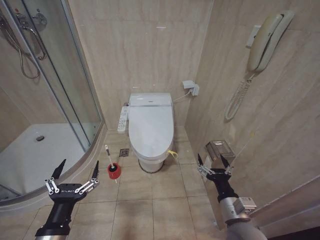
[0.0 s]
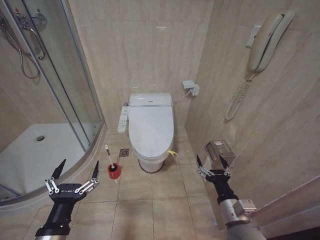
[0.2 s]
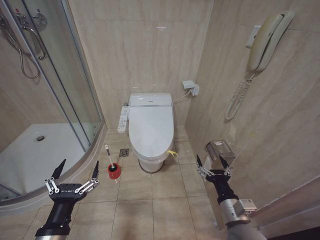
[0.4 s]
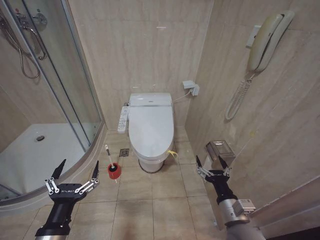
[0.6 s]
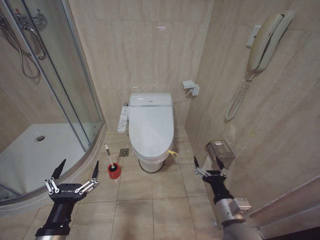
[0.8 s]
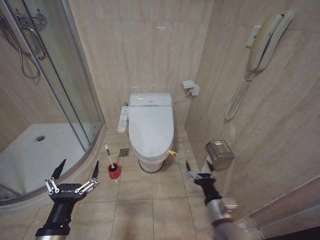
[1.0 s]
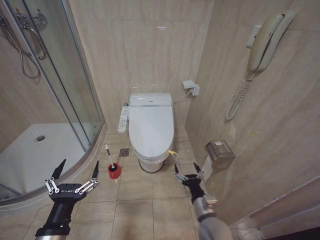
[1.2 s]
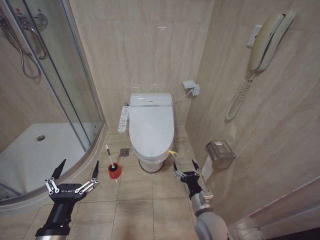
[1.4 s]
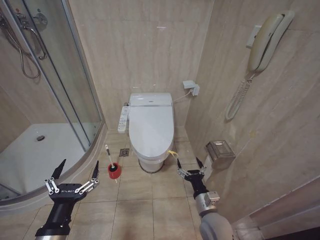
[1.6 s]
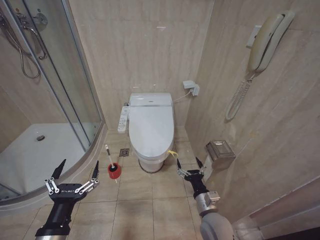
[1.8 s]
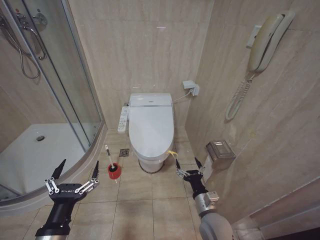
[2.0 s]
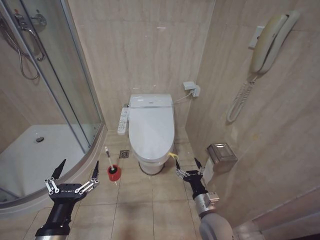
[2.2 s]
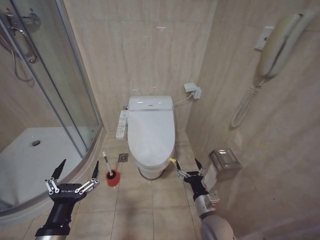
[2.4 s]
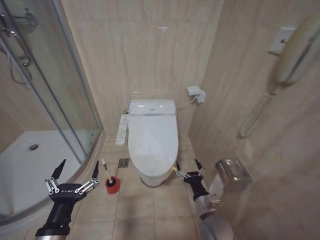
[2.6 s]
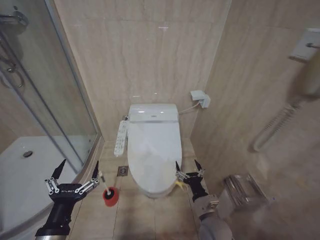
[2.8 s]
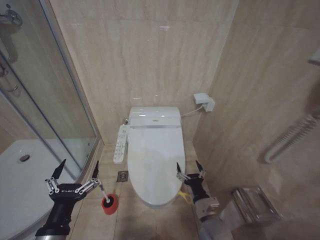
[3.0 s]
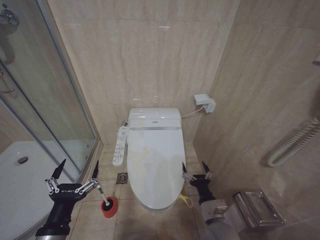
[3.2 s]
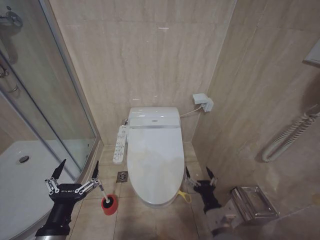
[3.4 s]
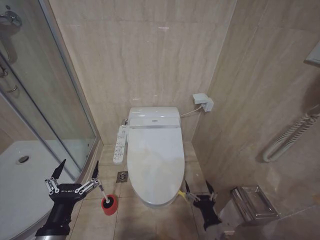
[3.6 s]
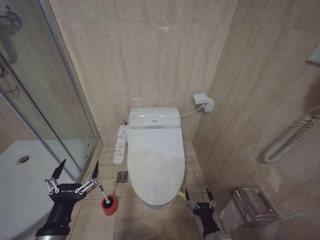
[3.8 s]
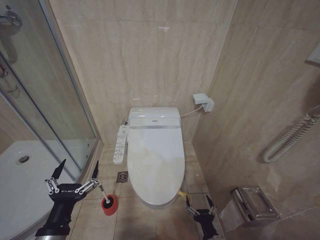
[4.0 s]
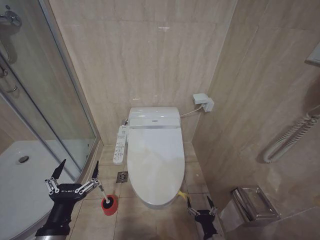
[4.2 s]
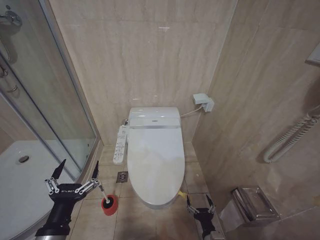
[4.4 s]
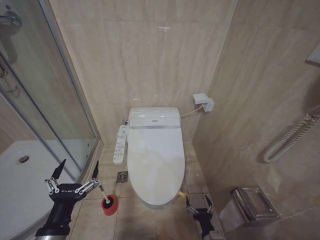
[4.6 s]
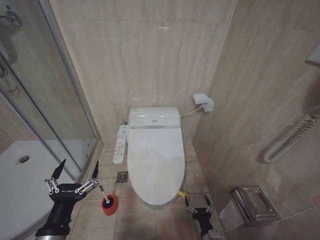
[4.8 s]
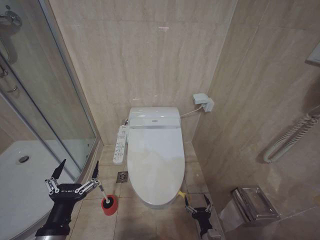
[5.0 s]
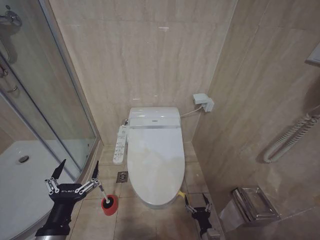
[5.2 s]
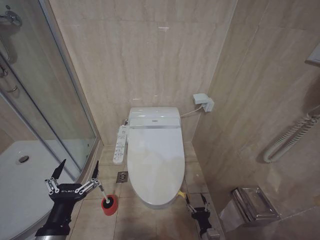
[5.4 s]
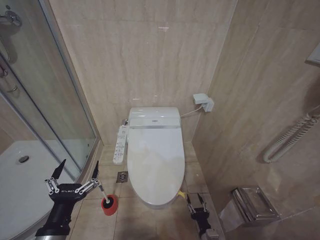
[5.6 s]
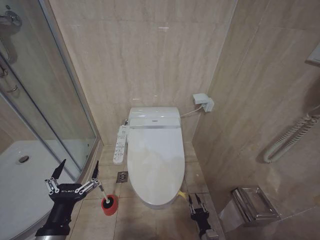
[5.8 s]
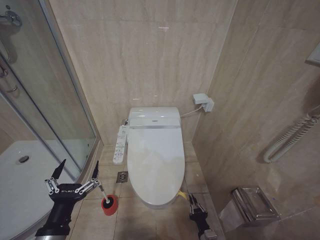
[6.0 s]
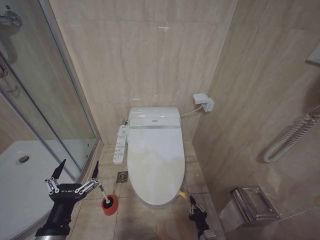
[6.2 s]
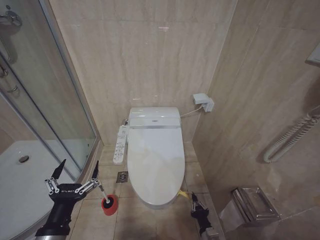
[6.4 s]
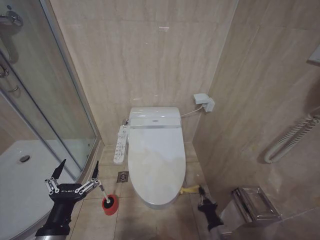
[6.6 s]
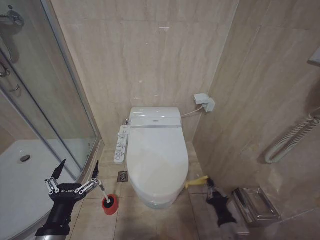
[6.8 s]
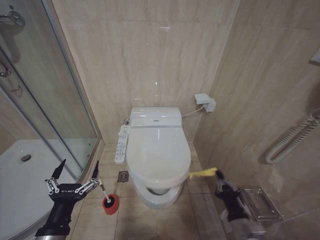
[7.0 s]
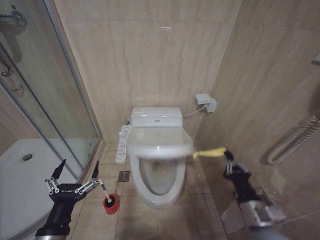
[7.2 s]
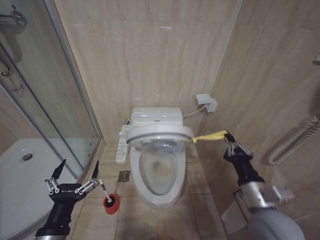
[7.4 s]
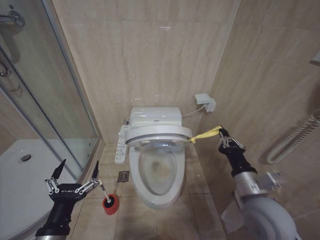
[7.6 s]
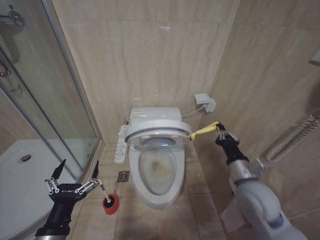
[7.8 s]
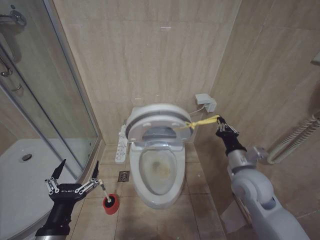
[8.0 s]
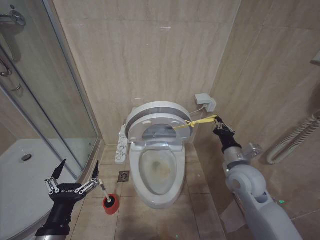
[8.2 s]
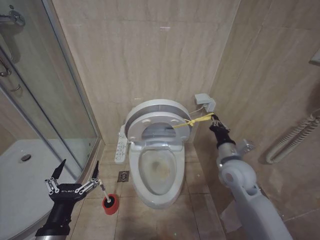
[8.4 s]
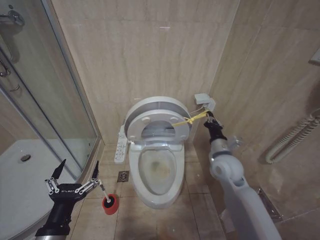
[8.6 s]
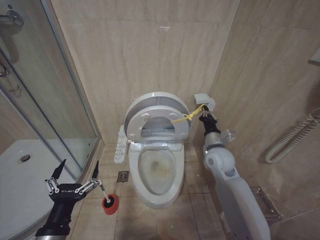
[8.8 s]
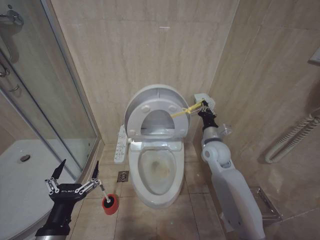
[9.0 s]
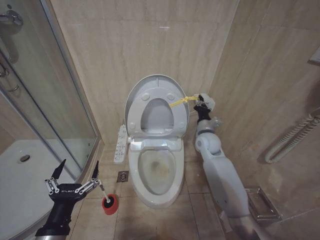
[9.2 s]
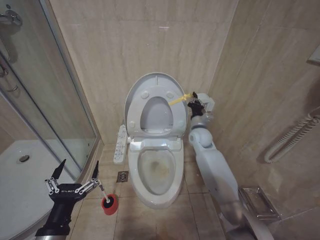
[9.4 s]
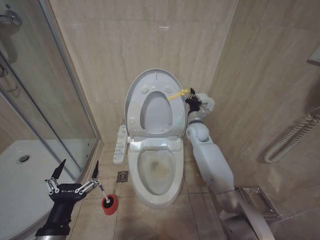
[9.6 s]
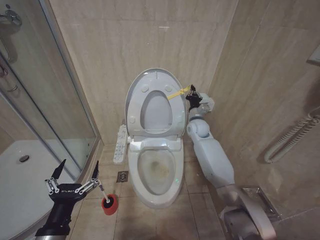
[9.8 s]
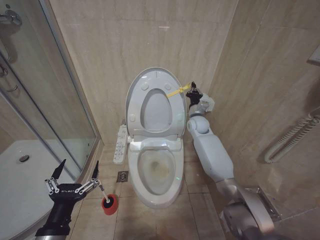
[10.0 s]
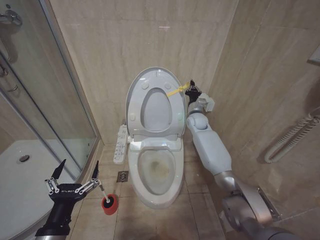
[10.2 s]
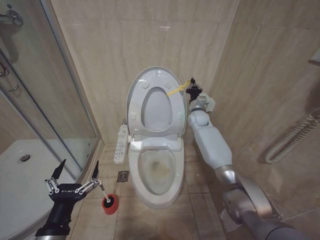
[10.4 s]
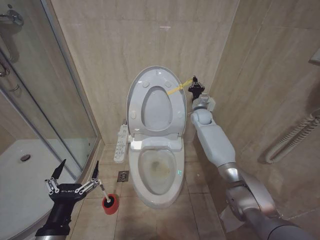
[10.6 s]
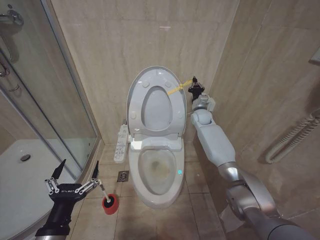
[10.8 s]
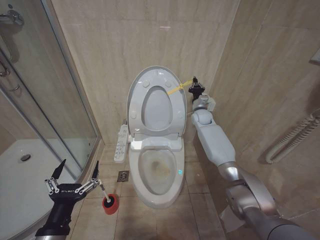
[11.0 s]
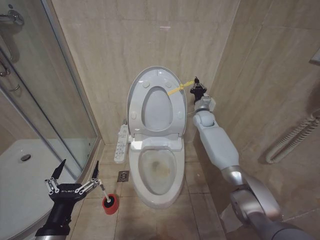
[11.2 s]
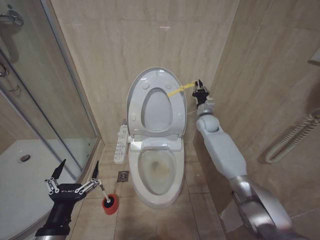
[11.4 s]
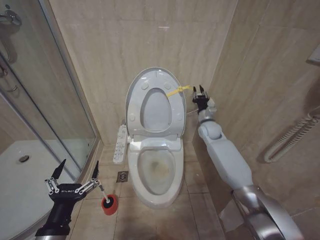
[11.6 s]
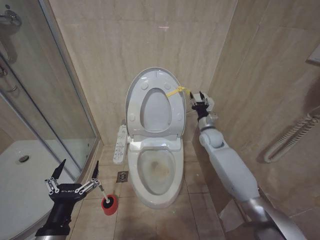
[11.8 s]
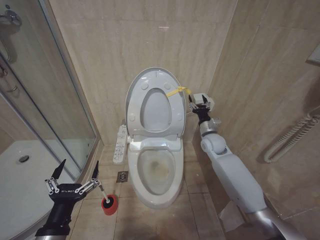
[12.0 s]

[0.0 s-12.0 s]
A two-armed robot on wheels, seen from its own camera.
Task of the whole recording: Open the toilet lid, clean the toilet bowl with a toilet brush, close the toilet lid, and flush.
3.0 to 4.4 s: The right gripper heads downward and backward, covering approximately 15 cm.
6.0 to 7.6 s: The right gripper heads upward, covering about 35 cm.
7.6 to 9.0 s: The right gripper moves forward, some 20 cm.
9.0 to 10.4 s: The right gripper moves forward, about 20 cm.
10.4 to 12.0 s: The right gripper moves backward, about 10 cm, and opens.

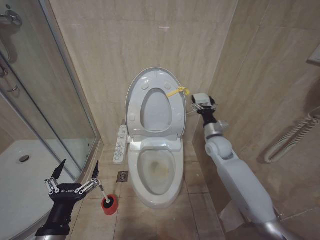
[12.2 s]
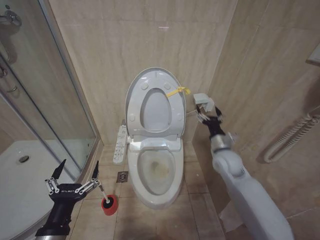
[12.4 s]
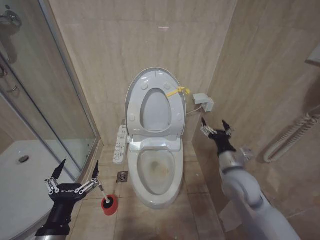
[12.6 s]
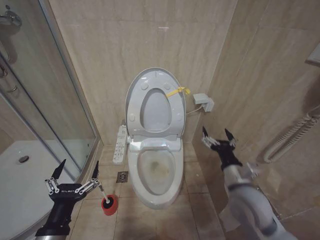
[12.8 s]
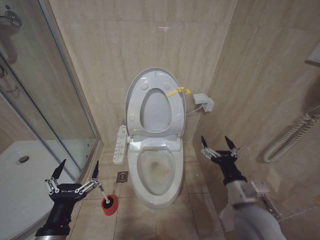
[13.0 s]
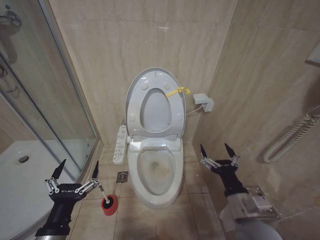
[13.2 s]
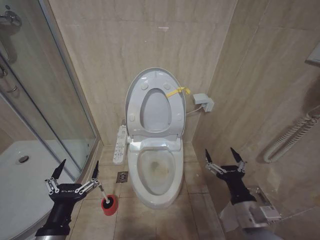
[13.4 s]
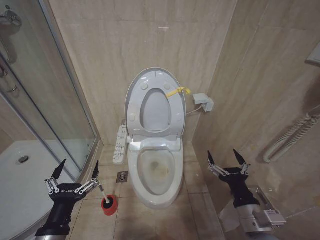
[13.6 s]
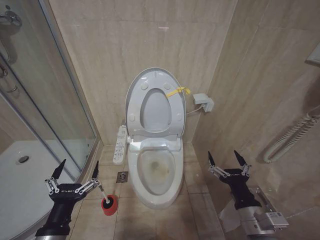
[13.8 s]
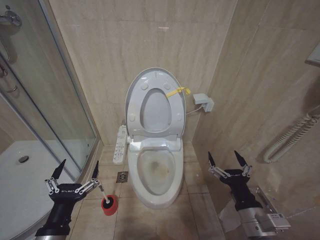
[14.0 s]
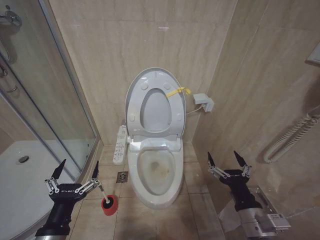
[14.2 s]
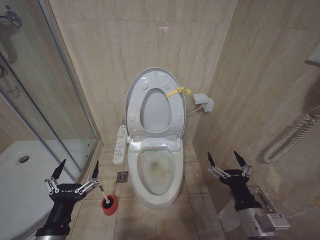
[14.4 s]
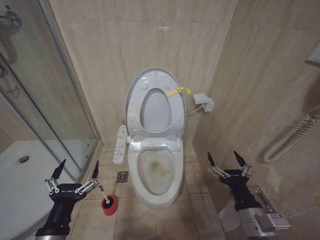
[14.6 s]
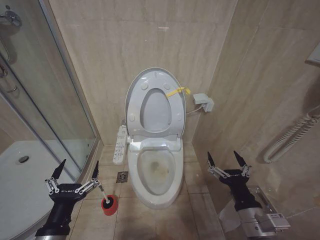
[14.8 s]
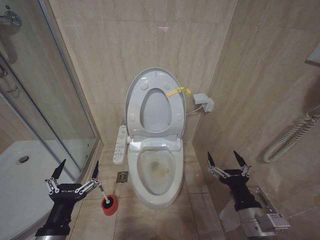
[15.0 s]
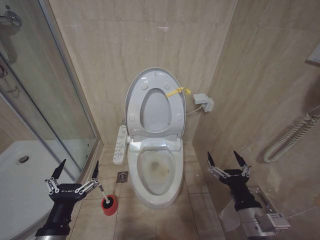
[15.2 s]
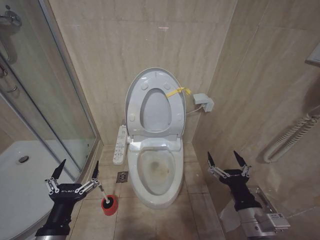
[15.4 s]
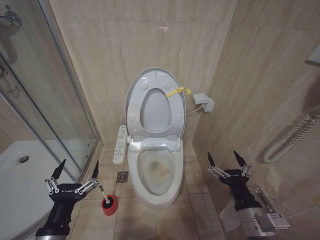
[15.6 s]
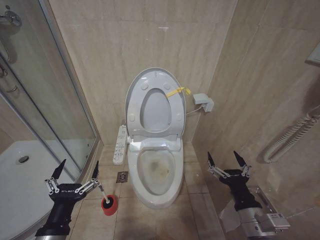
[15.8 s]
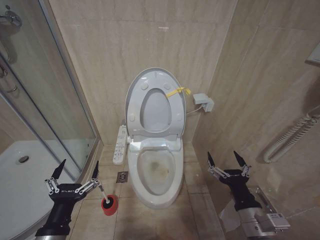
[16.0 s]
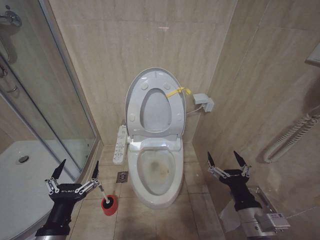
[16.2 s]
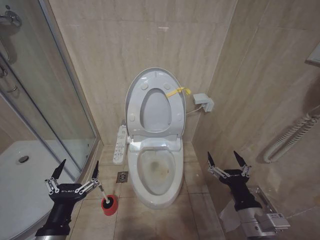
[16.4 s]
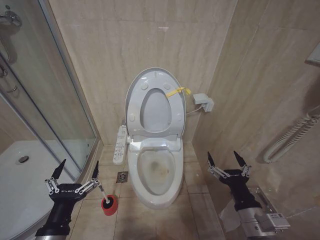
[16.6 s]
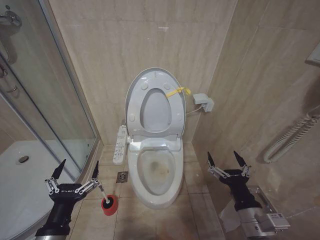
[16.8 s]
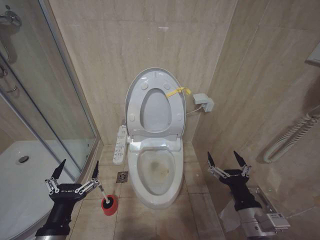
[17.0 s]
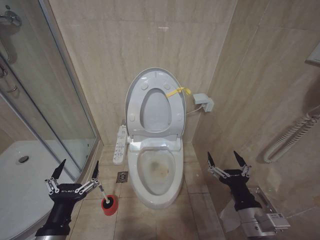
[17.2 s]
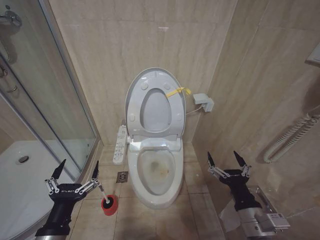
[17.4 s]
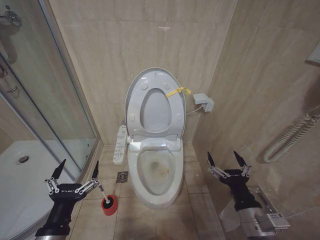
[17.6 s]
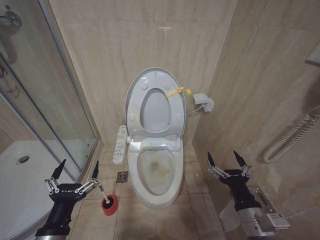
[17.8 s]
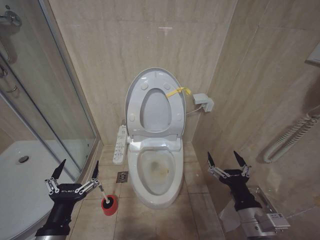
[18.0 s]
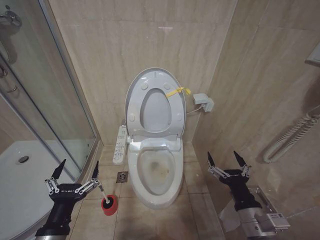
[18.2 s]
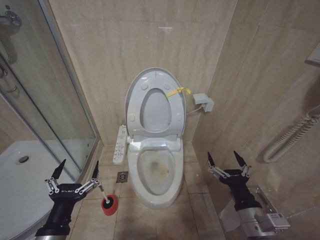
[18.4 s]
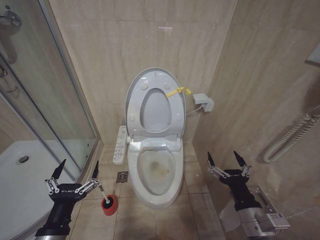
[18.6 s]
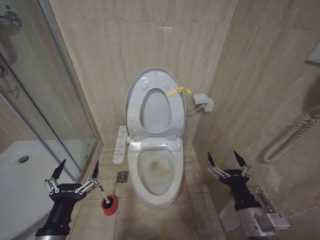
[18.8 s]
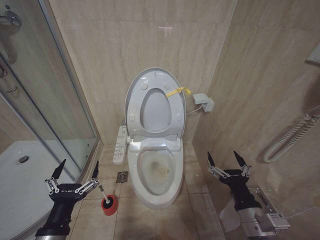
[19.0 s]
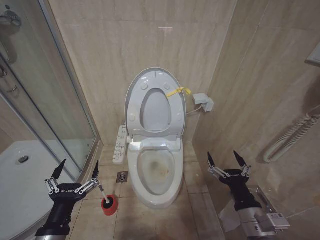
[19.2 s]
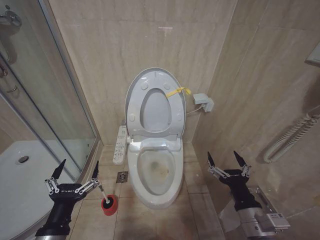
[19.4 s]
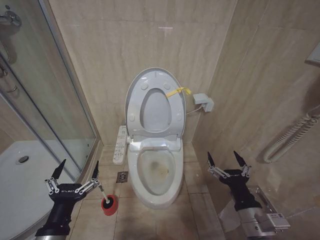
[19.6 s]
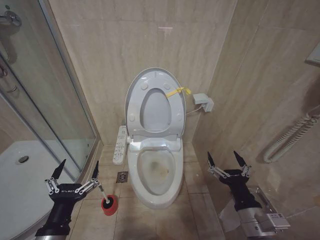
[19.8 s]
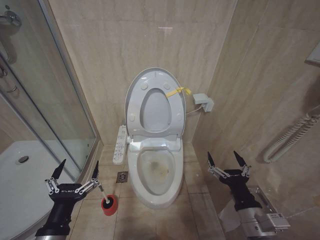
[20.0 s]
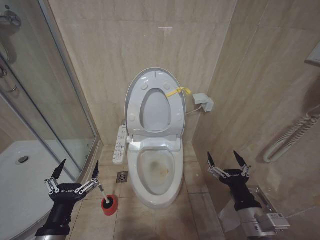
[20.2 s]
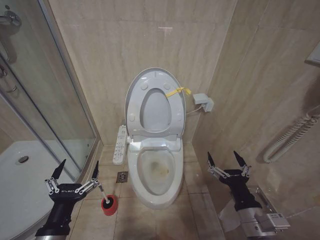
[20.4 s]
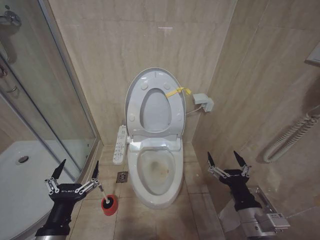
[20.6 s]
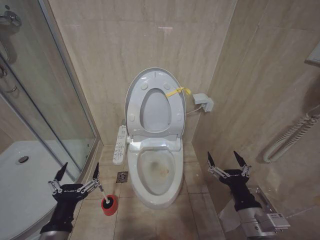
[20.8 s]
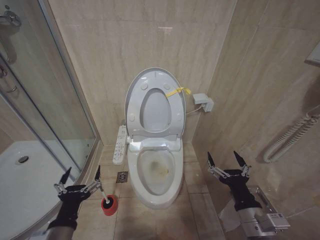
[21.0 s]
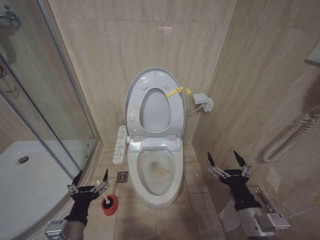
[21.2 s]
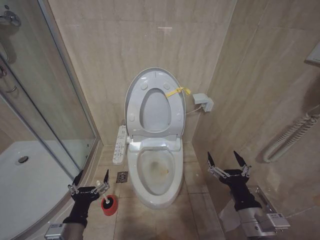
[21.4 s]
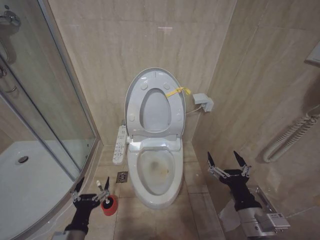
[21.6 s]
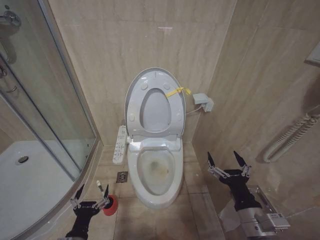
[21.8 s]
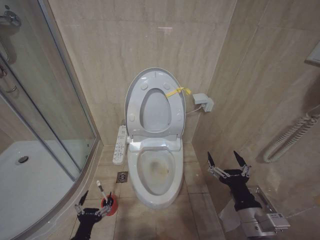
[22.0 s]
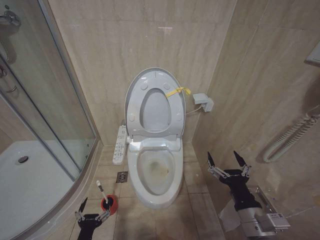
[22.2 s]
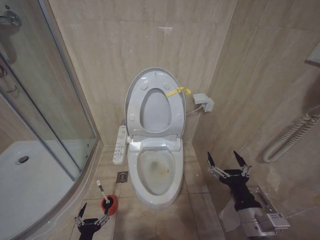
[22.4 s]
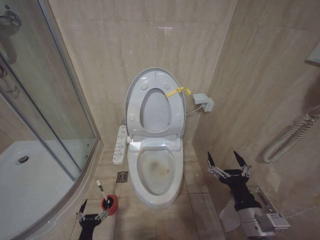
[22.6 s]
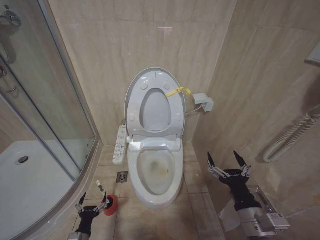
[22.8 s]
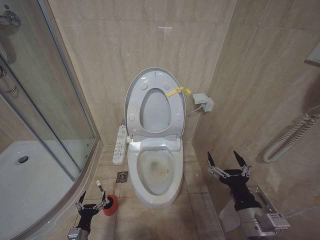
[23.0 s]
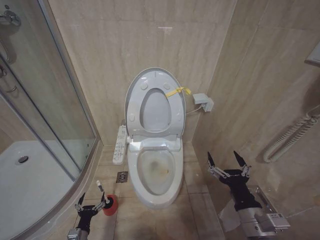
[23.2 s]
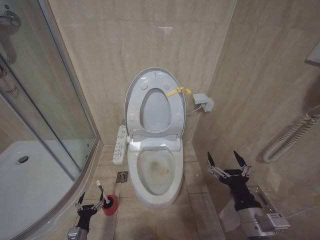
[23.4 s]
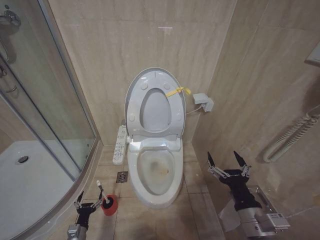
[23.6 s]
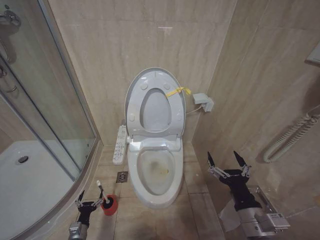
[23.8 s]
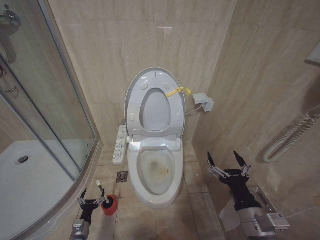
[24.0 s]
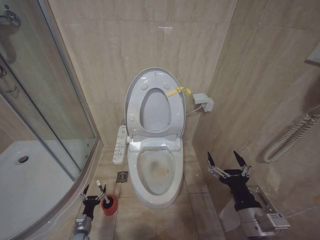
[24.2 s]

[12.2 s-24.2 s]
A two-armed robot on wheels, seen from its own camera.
Task of the whole recording: Open the toilet lid, clean the toilet bowl with a toilet brush, close the toilet lid, and flush.
12.2 to 13.8 s: The right gripper moves backward, some 35 cm.
13.8 to 19.8 s: The two grippers keep their place.
19.8 to 21.2 s: The left gripper changes place by approximately 5 cm.
21.2 to 22.6 s: The left gripper shifts about 20 cm downward.
22.6 to 24.2 s: The left gripper shifts approximately 15 cm forward, downward and to the left.
